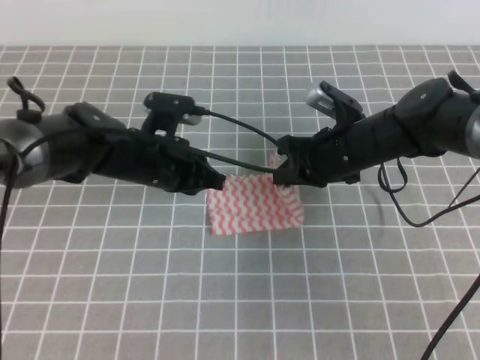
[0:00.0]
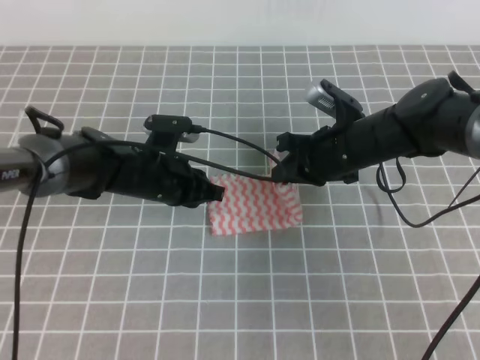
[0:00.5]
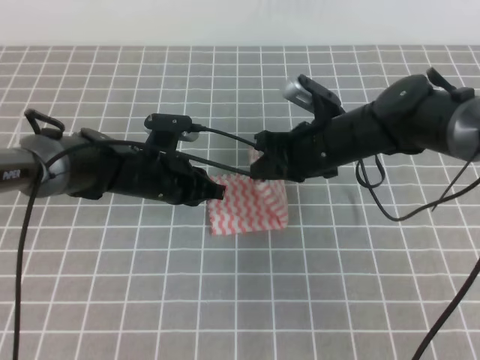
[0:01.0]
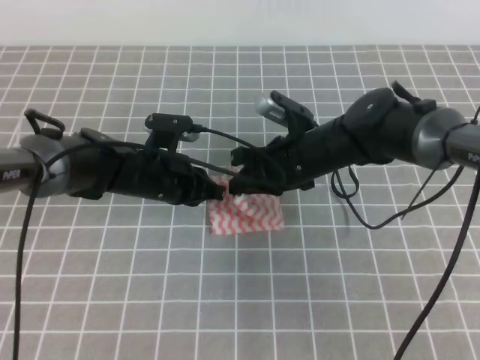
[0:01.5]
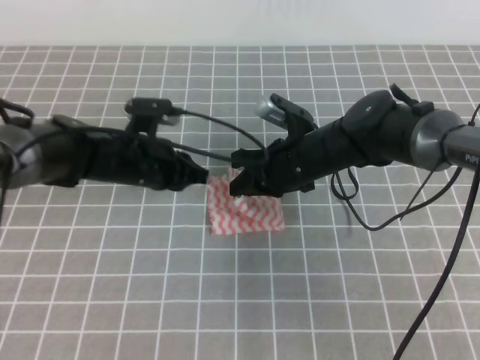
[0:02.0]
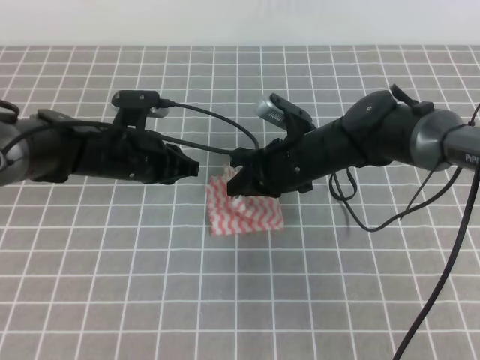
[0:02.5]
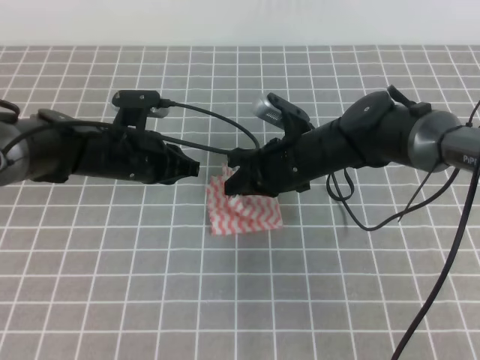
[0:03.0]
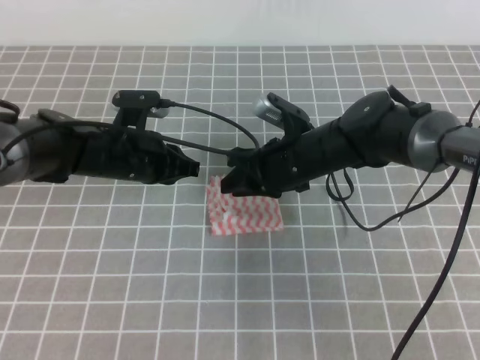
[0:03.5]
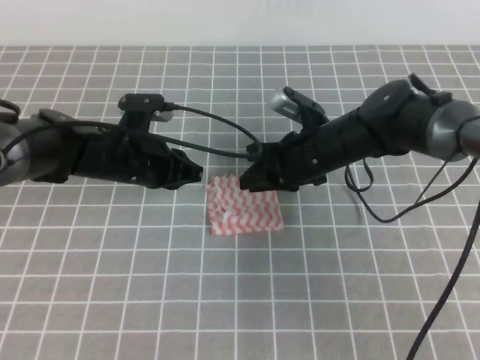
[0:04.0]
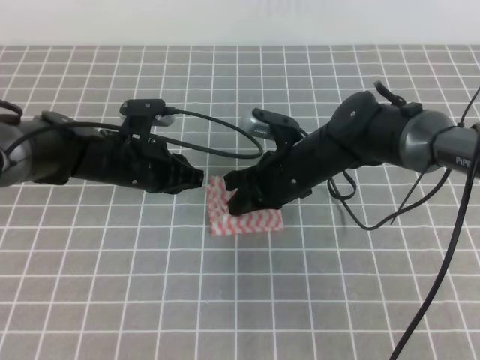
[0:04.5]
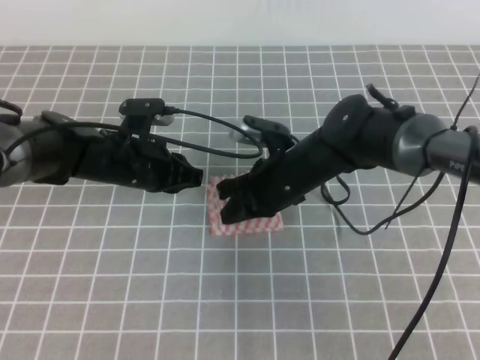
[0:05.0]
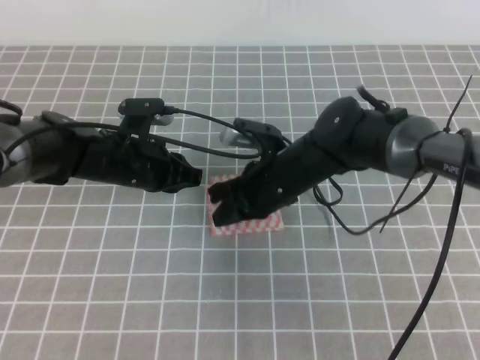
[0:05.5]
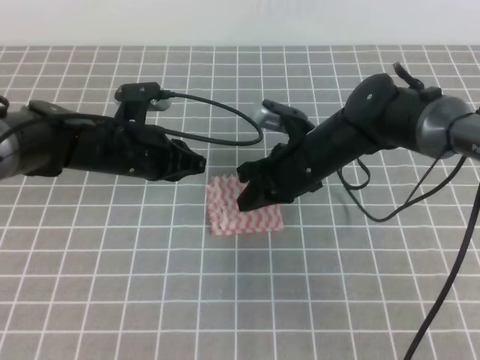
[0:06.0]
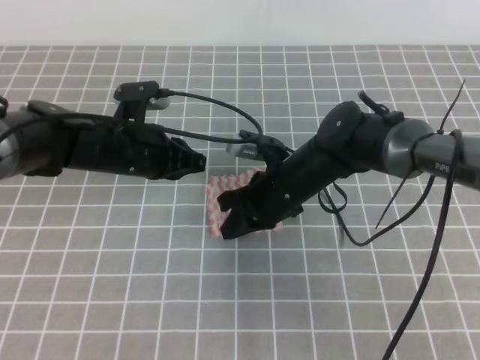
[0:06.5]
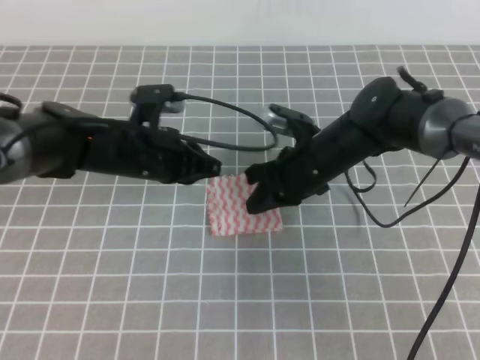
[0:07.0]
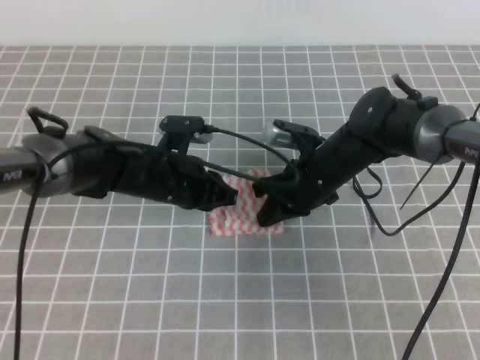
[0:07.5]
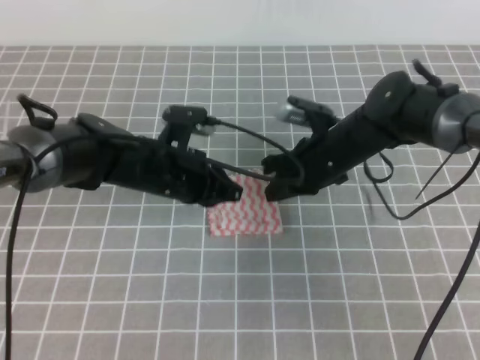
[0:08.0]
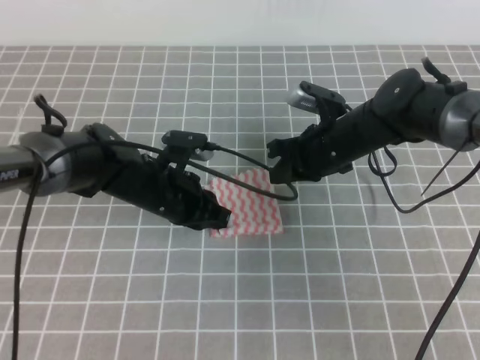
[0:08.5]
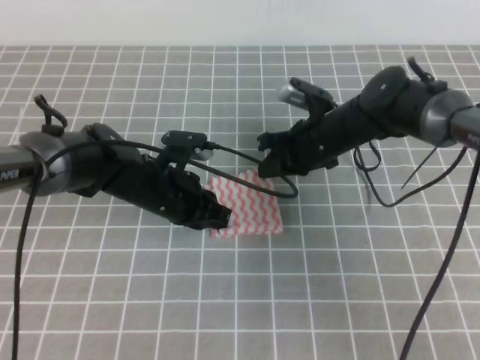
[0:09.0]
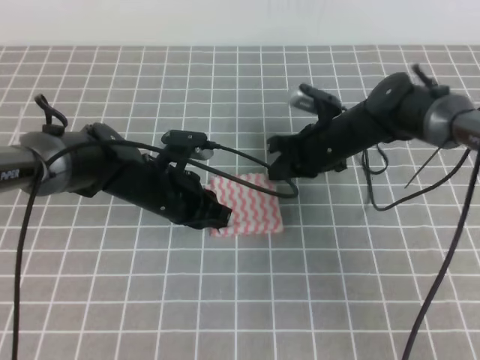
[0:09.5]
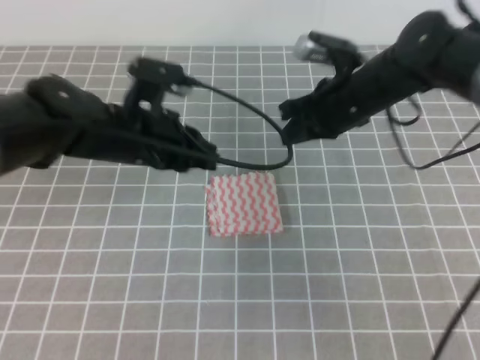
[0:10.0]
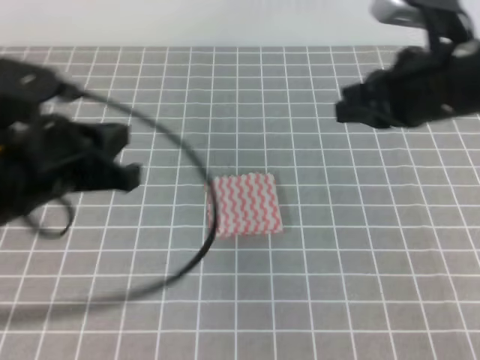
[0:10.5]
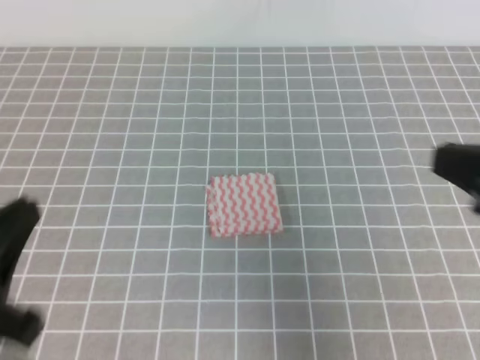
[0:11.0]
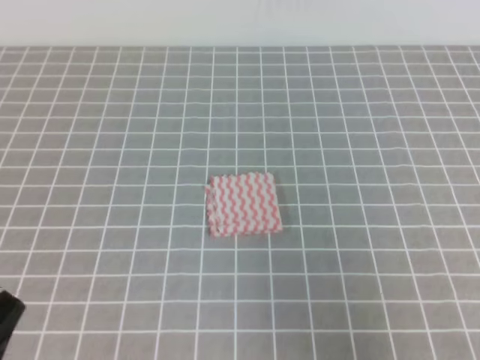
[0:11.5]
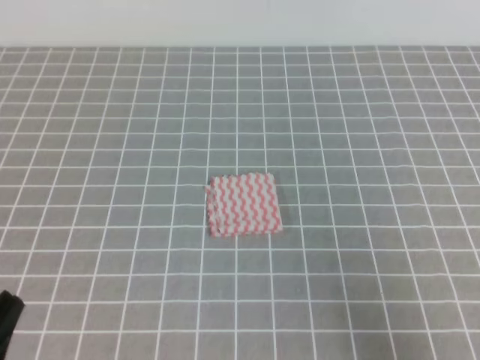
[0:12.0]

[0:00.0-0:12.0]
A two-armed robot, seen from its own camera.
0:00.0 to 0:02.0: The right gripper heads to the left, covering roughly 5 cm.
0:02.0 to 0:04.0: The right gripper opens up.
0:04.0 to 0:06.0: The right gripper closes up.
0:06.0 to 0:08.0: The left gripper changes place by approximately 5 cm.
0:08.0 to 0:10.0: Both grippers move upward, about 5 cm.
0:10.0 to 0:12.0: The left gripper travels backward and to the left by approximately 35 cm. The right gripper is displaced backward and to the right by some 40 cm.
